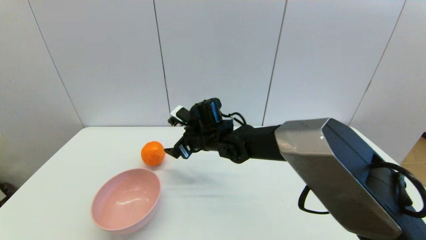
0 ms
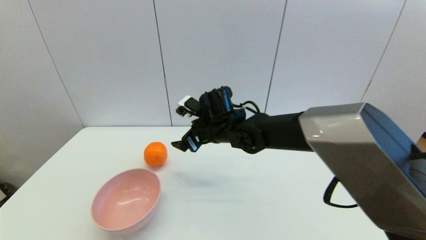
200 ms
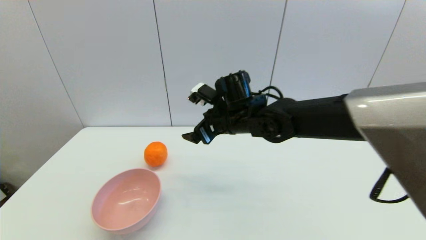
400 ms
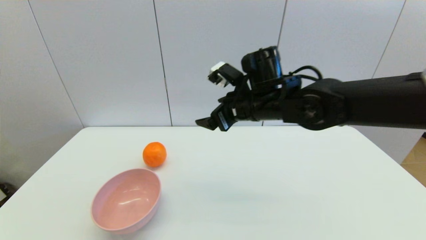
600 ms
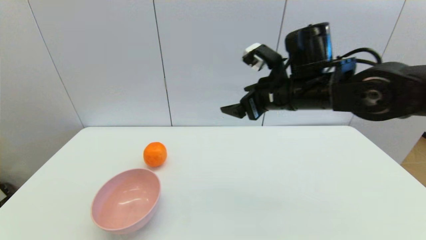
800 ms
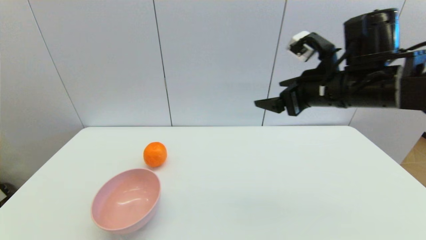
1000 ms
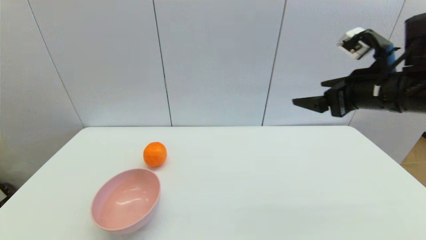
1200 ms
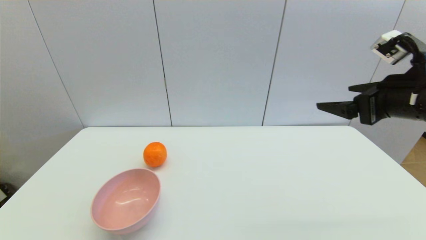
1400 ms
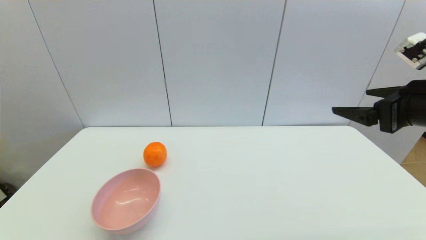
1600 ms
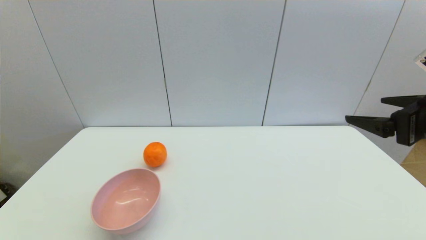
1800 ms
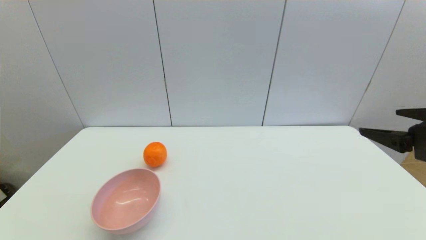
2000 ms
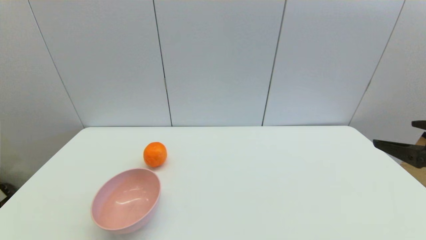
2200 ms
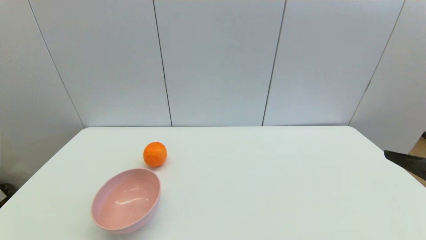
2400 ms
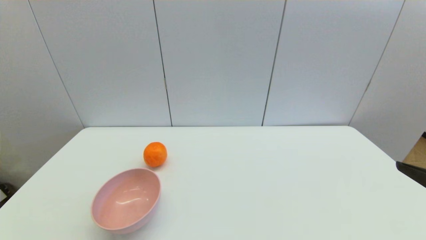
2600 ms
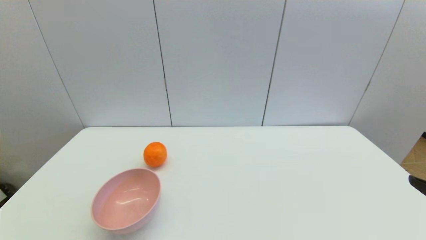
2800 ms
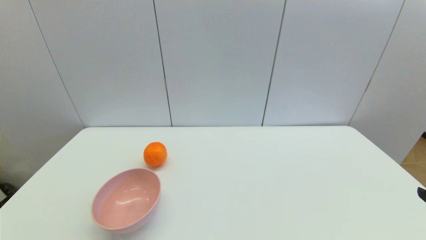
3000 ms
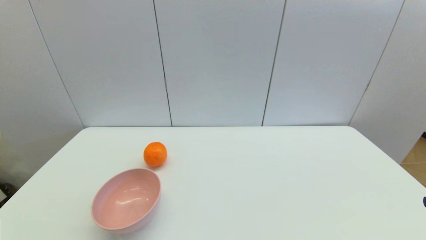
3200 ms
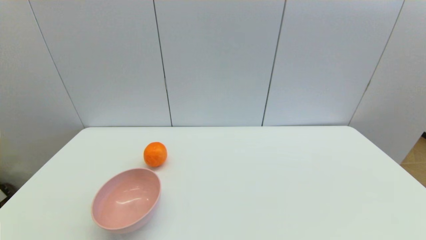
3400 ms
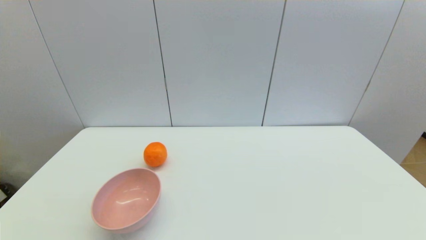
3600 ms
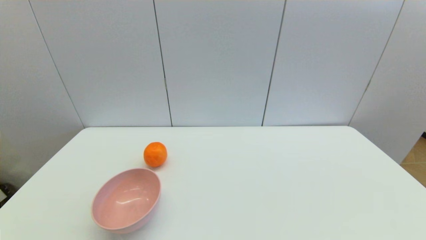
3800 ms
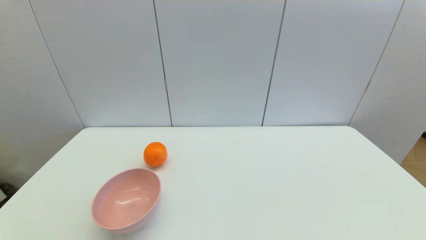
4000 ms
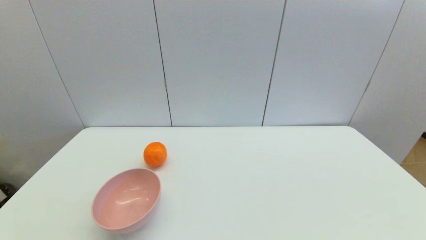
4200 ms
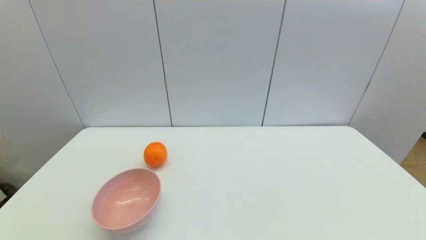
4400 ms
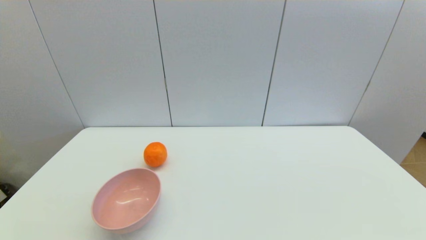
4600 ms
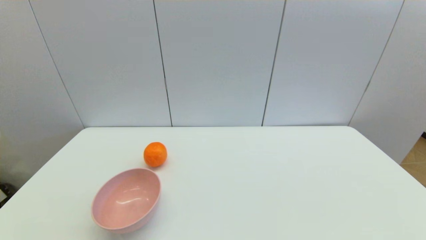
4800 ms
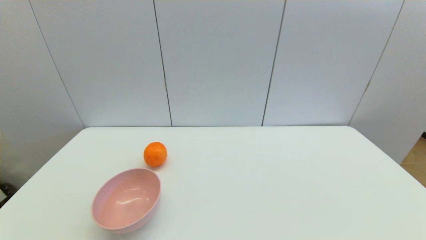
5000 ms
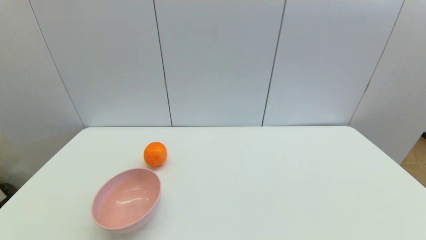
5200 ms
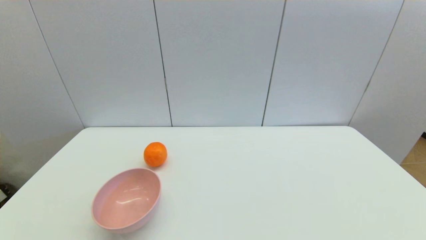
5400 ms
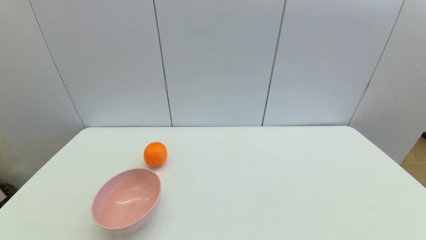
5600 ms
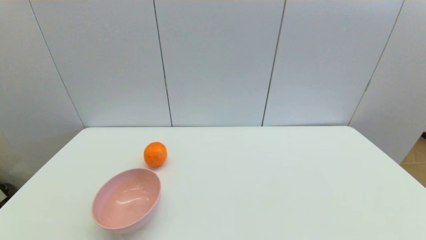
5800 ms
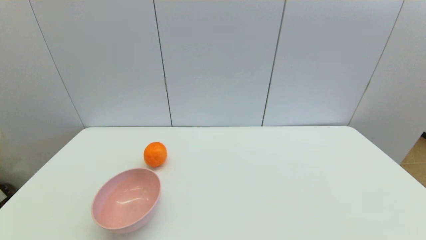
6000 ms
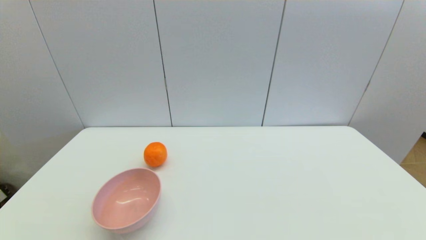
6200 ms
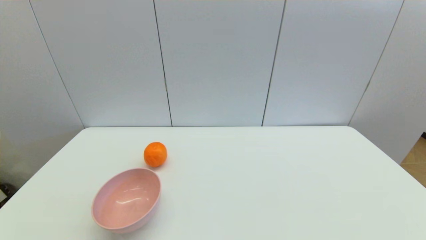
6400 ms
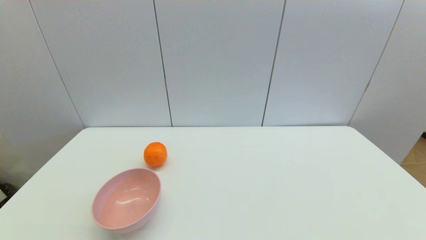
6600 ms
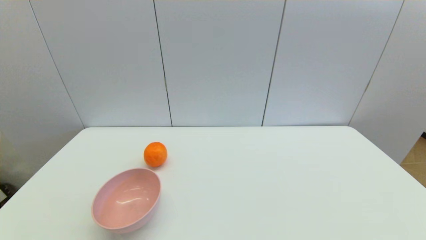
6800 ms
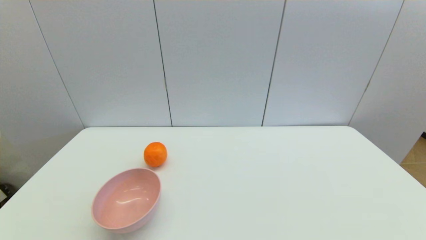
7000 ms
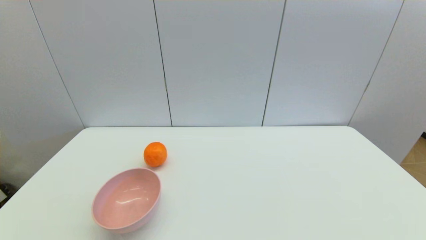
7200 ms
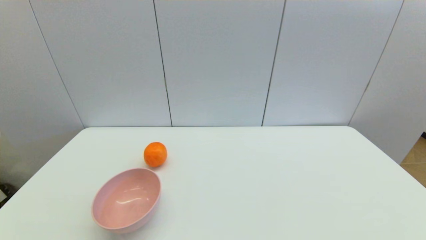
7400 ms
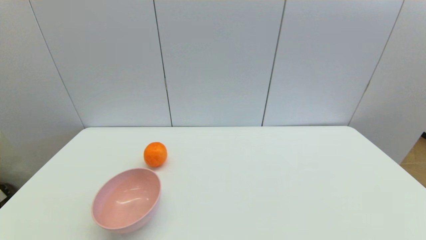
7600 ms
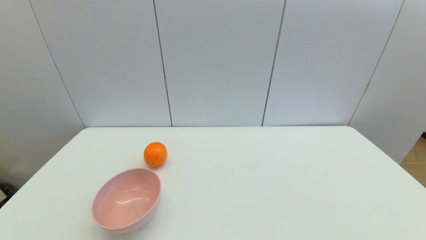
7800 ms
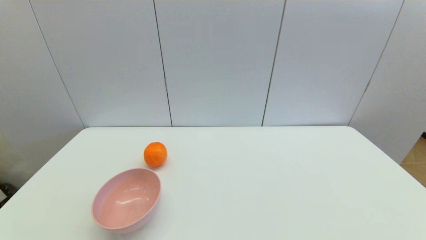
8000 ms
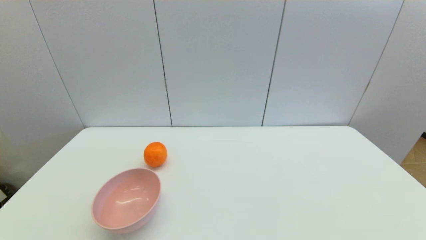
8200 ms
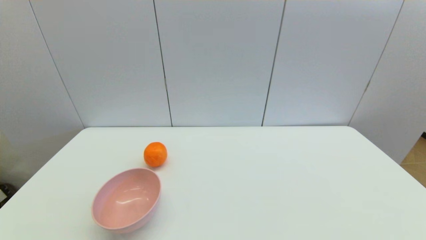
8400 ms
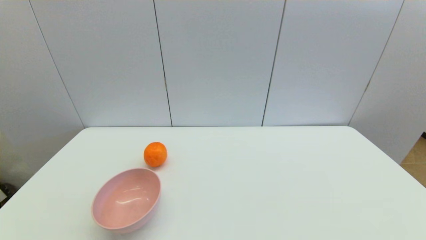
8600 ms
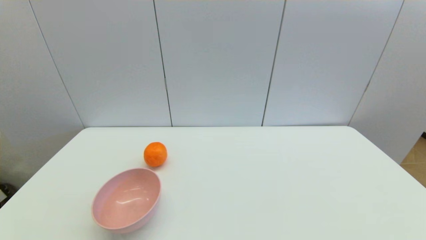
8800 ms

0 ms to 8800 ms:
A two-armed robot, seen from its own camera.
0 ms to 1400 ms: The right gripper shifts roughly 40 cm to the right, upward and backward.
1400 ms to 3000 ms: The right gripper moves backward and downward, some 20 cm.
5800 ms to 8800 ms: The two grippers keep their place.
